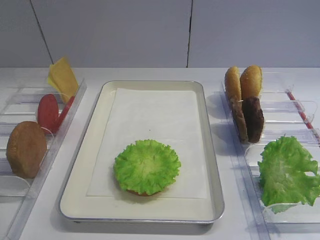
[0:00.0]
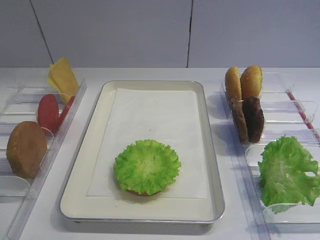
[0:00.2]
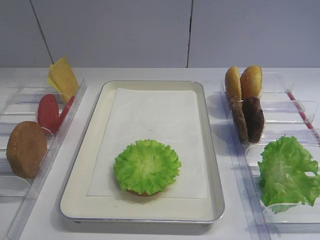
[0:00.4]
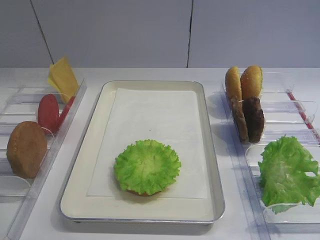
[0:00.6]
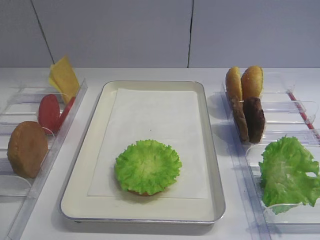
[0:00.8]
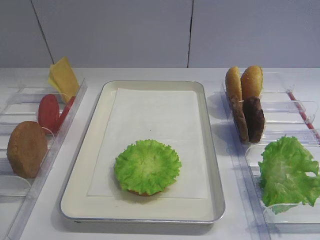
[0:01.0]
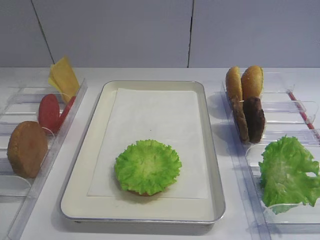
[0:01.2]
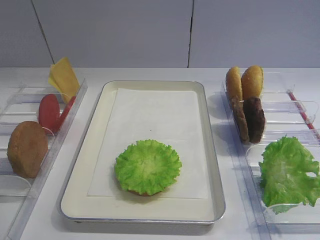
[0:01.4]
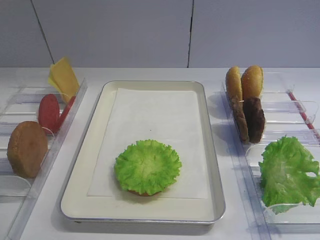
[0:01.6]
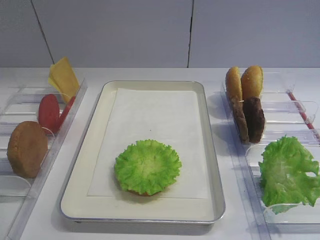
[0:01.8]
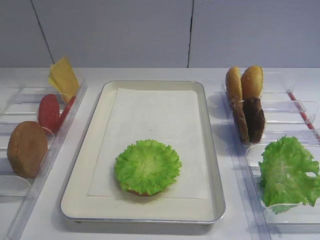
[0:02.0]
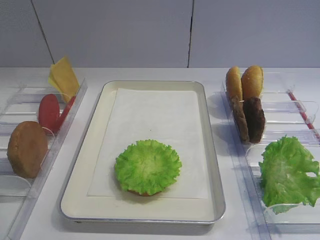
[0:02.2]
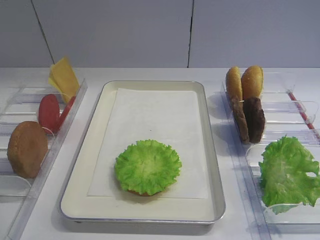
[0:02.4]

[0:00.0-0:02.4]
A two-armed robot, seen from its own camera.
0.0 to 1.2 s: The grippers move only a little.
1.2 to 2.4 s: Both grippers stay about where they are.

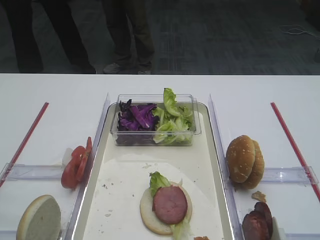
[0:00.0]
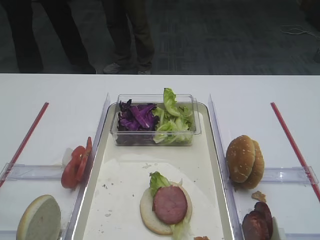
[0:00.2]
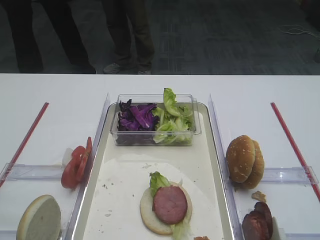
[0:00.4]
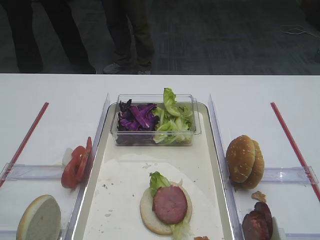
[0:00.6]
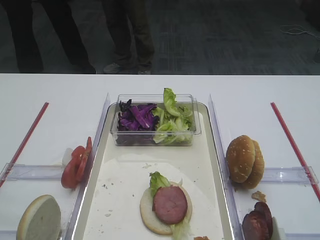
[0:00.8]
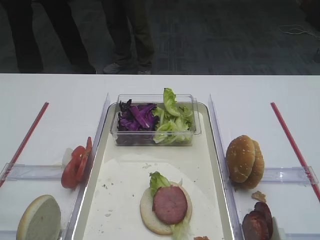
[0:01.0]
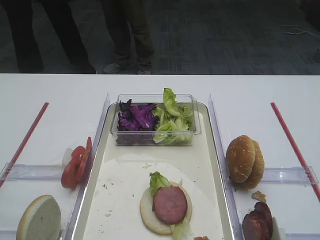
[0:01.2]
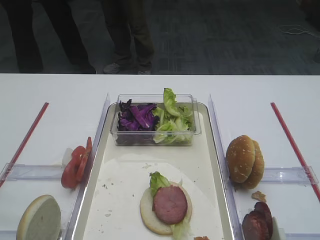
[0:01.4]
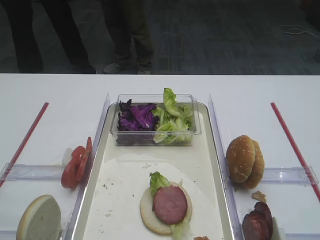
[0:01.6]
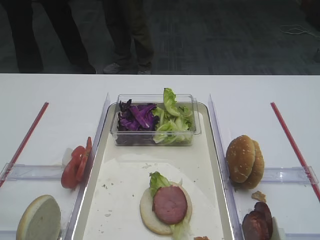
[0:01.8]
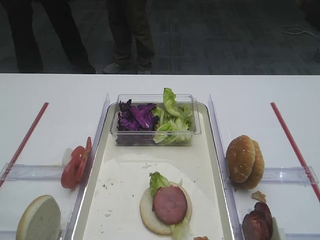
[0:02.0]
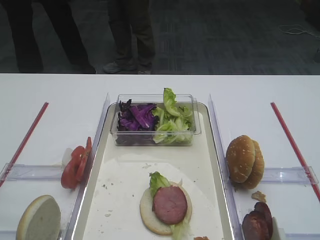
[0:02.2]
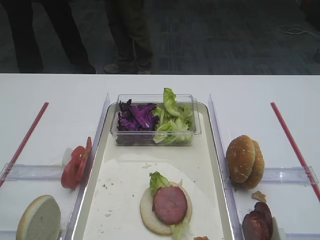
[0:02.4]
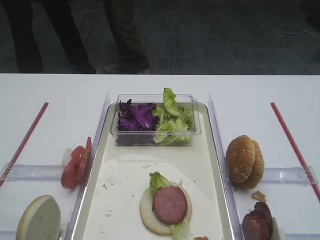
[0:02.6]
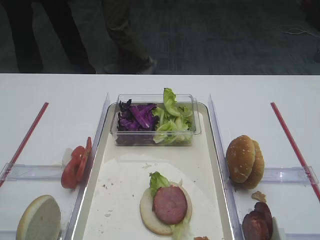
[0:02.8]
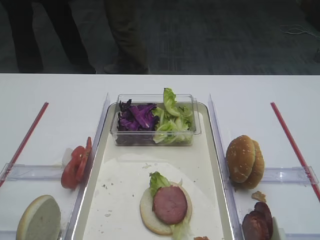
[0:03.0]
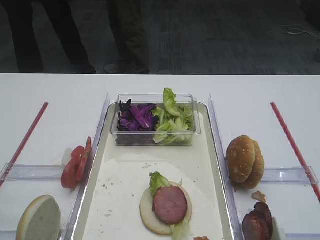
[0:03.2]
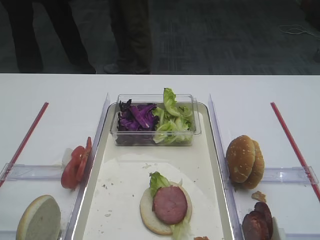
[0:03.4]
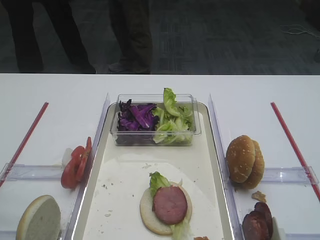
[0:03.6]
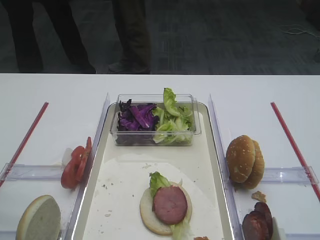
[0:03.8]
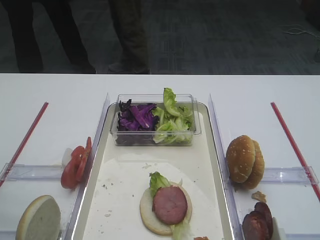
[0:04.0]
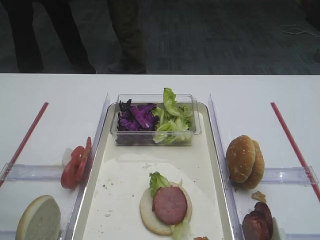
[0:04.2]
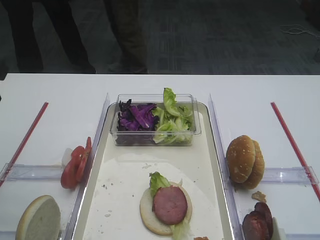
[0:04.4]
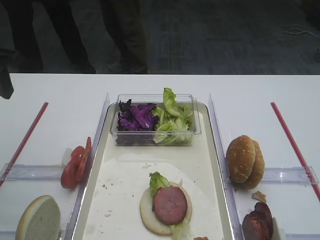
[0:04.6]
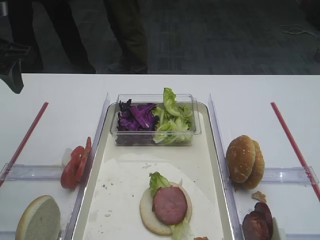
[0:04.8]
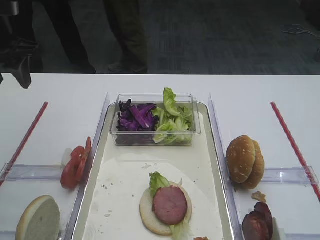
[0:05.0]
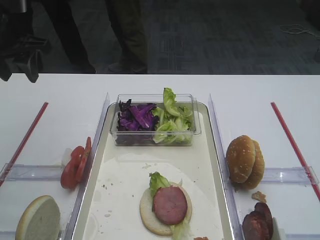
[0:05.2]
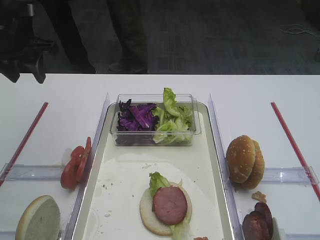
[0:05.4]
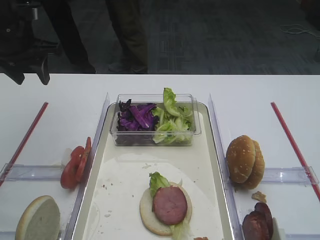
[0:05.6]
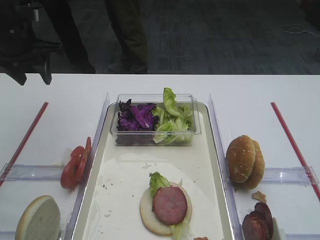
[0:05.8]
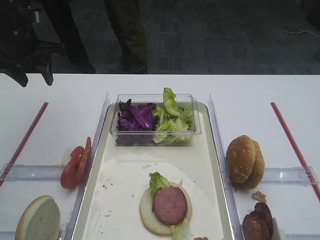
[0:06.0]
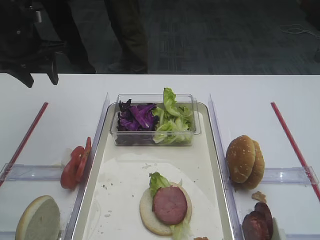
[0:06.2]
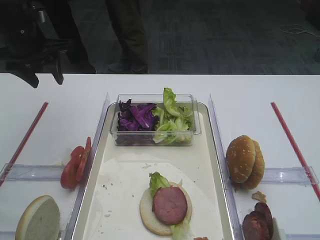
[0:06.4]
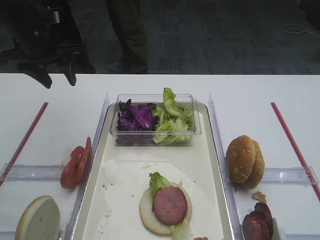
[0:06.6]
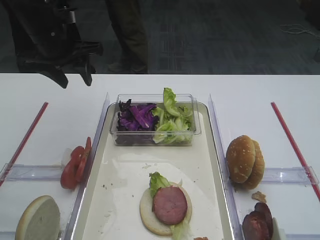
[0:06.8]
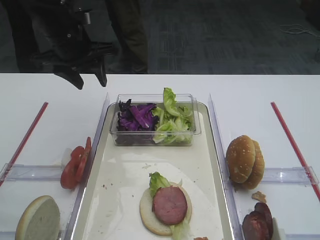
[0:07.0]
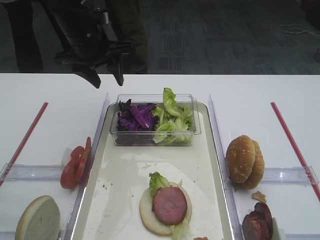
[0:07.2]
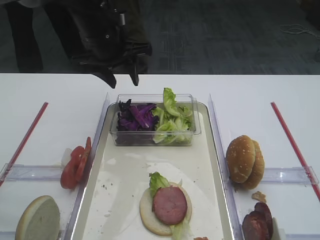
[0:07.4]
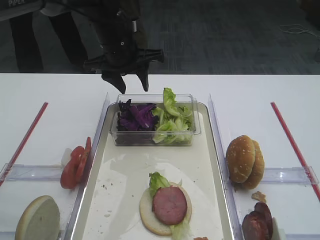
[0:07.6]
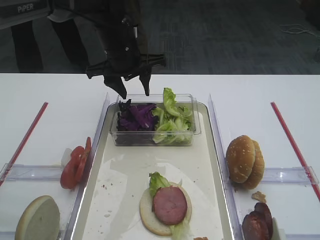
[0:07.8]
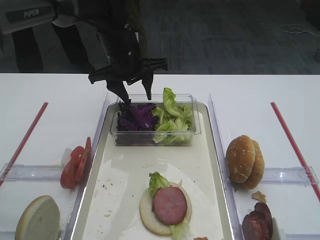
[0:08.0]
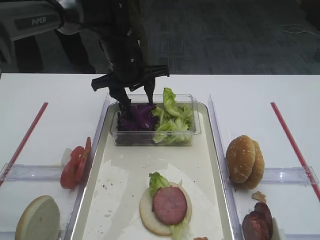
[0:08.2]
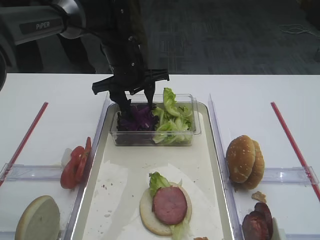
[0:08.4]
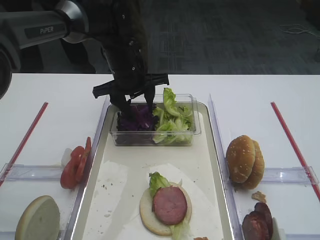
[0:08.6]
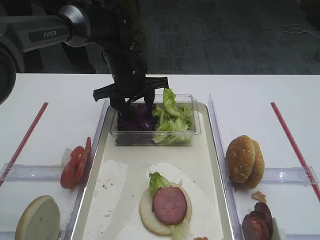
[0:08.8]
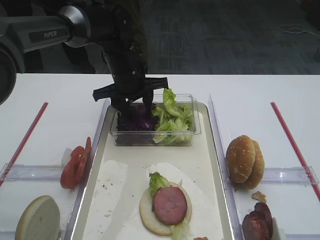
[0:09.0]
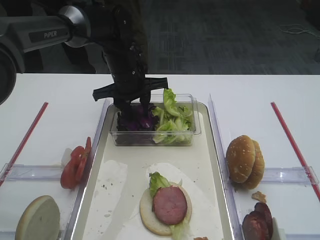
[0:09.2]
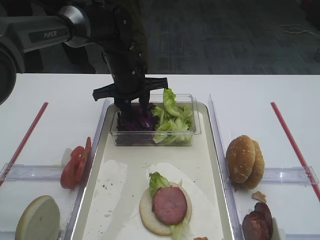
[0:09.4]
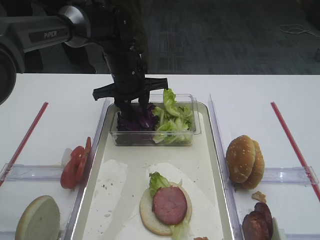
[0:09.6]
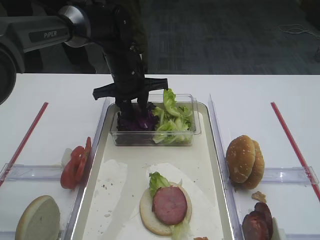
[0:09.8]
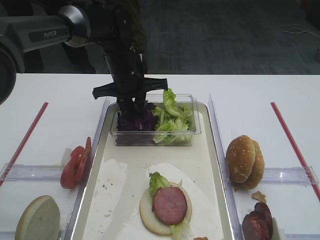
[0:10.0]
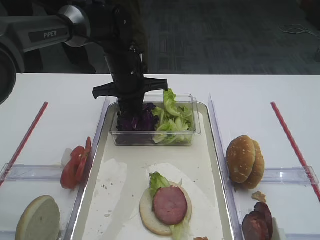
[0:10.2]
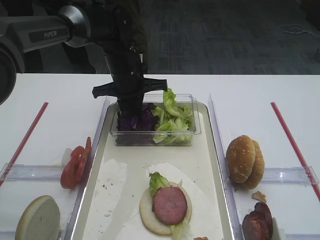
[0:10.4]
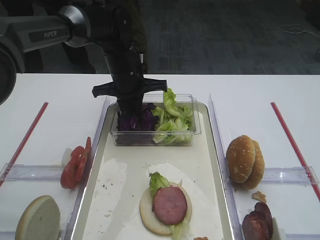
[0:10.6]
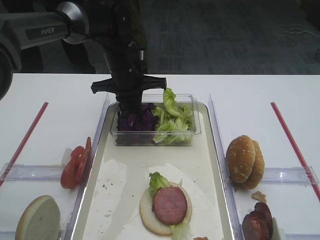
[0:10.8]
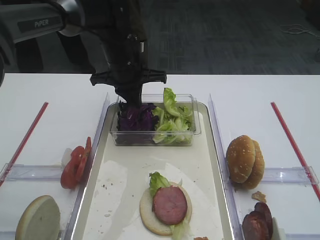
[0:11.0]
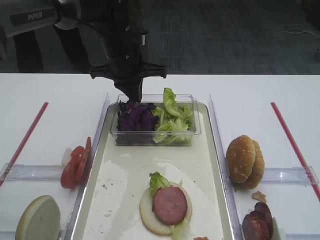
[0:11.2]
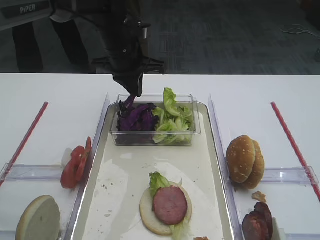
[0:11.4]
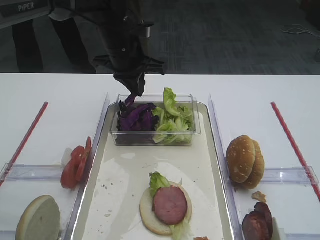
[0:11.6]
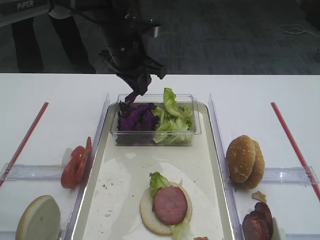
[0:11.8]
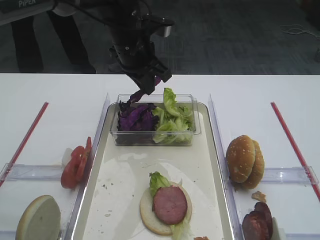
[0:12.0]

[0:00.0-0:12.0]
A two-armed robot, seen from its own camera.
Step, 0.0 to 11.4 s: Pick up the purple cabbage with the left gripper.
4.4 to 6.0 s: The left gripper shifts about 15 cm forward.
6.0 to 7.6 s: The left gripper heads to the right, covering roughly 20 cm.
7.6 to 9.0 s: The left gripper shifts approximately 5 cm downward.
9.0 to 10.4 s: The left gripper closes its fingers.
10.4 to 12.0 s: The left gripper heads upward, covering some 5 cm.

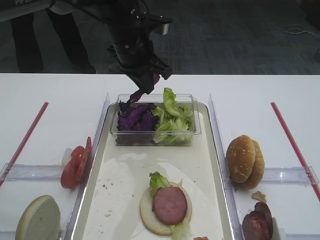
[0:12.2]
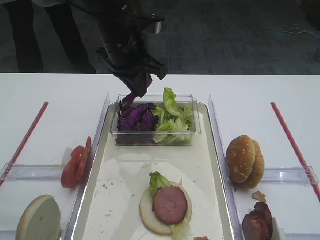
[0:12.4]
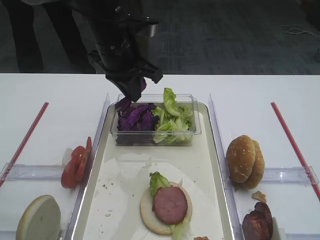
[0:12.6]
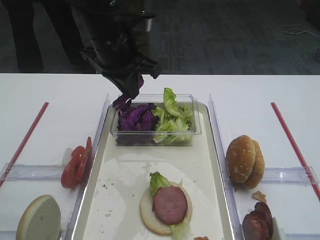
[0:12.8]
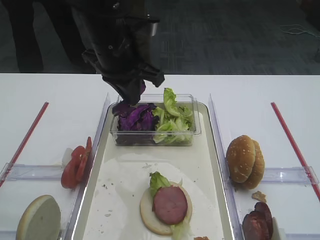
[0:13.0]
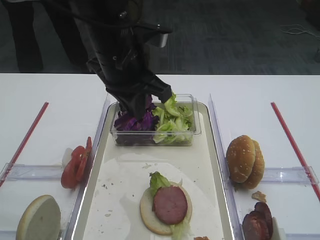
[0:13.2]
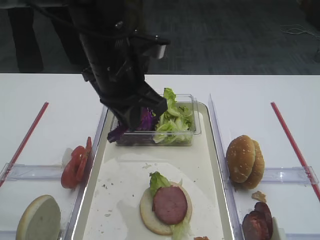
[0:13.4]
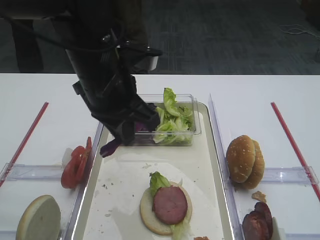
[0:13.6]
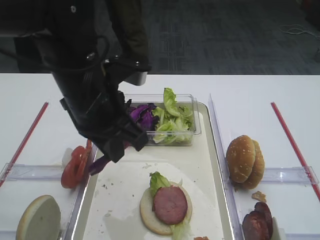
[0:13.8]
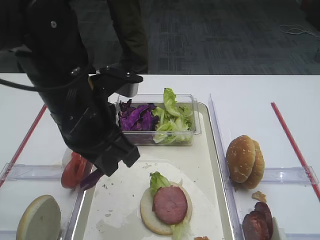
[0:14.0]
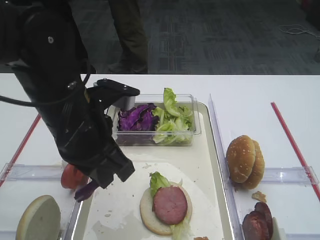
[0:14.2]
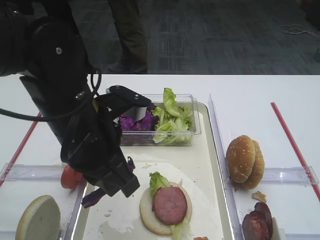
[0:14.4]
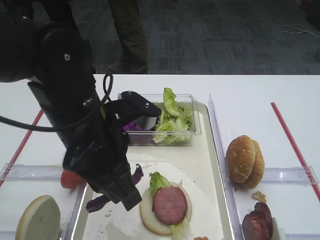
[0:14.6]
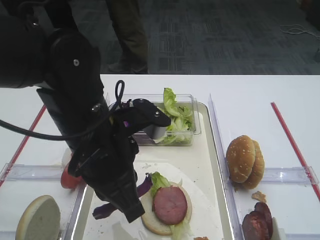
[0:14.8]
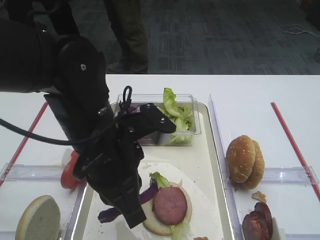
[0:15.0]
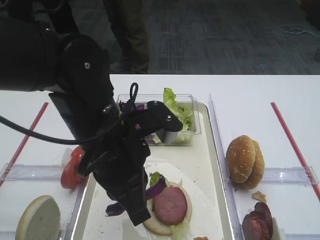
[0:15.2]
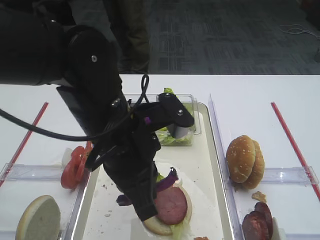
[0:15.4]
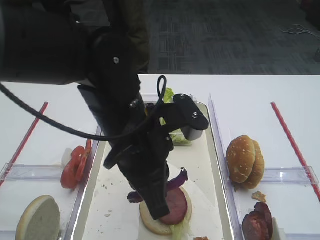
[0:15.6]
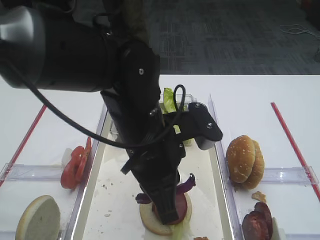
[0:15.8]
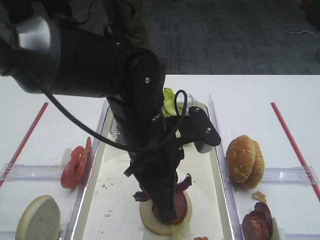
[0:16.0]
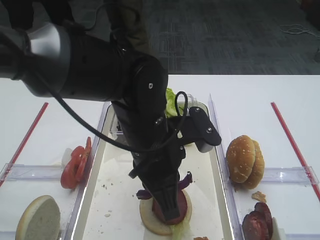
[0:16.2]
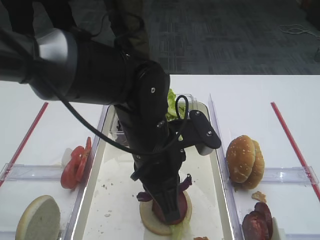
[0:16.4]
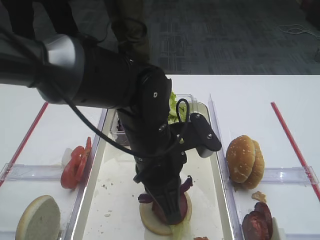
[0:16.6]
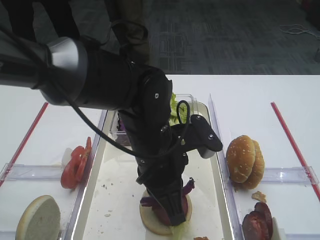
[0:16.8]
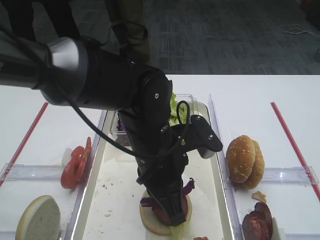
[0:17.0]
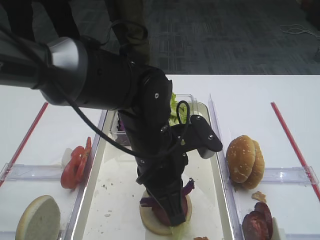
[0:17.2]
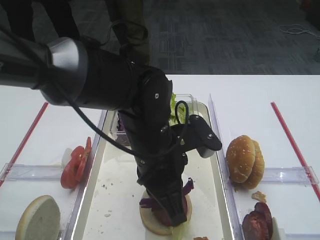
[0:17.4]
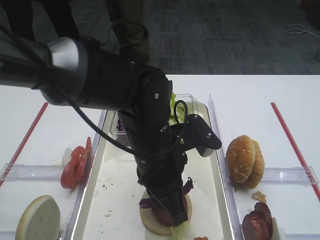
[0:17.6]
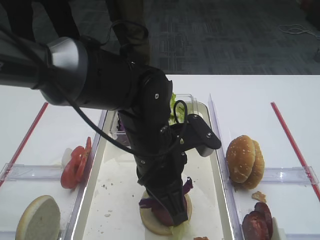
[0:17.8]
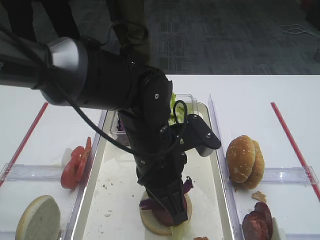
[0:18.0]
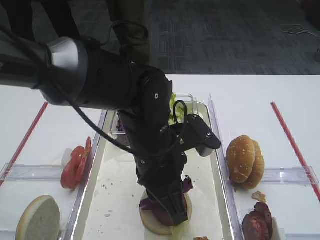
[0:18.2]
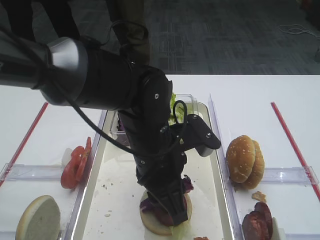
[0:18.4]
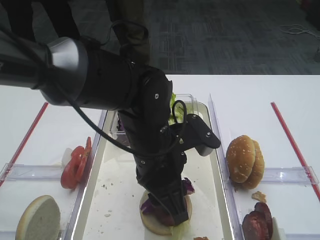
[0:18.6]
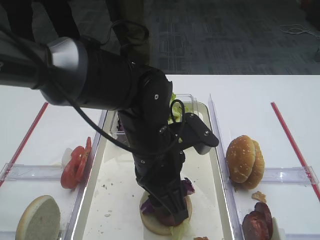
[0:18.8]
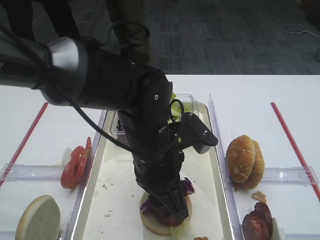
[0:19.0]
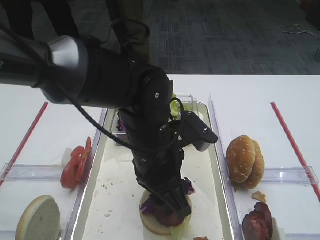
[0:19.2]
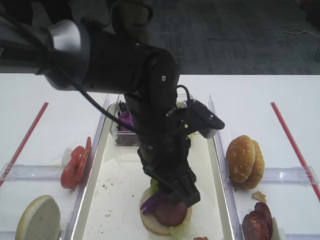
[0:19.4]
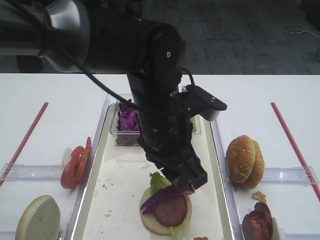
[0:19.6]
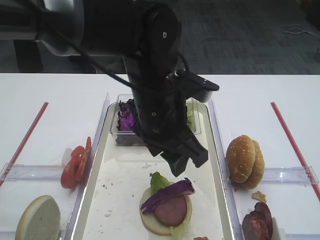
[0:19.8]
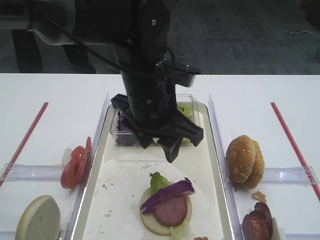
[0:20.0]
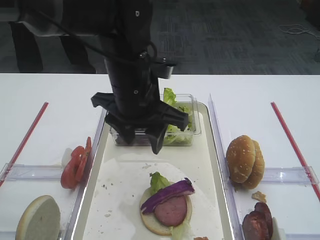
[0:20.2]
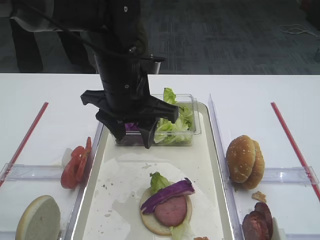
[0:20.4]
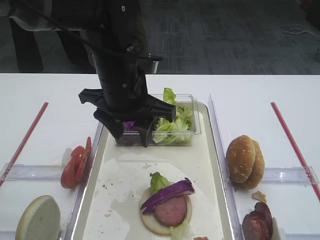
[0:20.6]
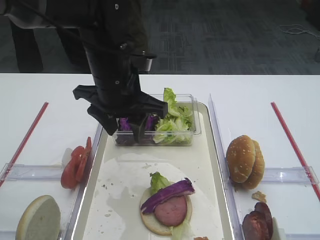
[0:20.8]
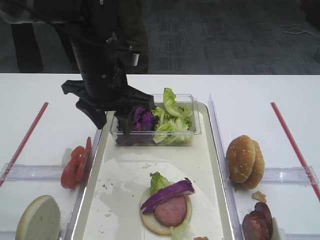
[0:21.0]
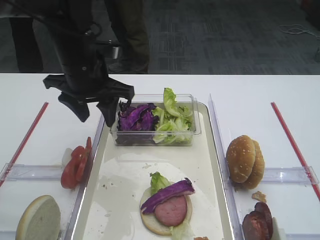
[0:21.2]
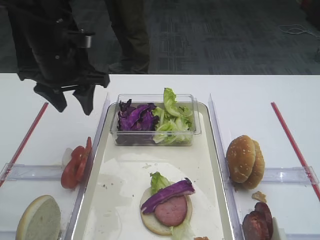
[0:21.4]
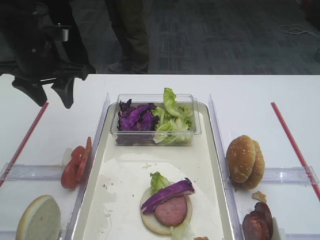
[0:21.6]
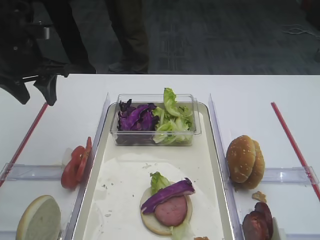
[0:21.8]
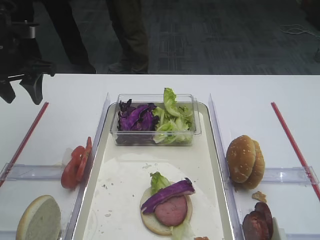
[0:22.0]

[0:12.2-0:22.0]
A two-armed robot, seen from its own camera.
Step, 12.2 to 19.6 s: Place the purple cabbage on the cutlet with the left gripper.
12.2 to 13.6 s: The left gripper goes approximately 15 cm backward.
13.6 to 15.0 s: The left gripper shifts some 10 cm backward and downward.
15.0 to 16.4 s: The left gripper heads to the right, covering some 5 cm.
16.4 to 17.8 s: The grippers stay close to where they were, moving slightly.
17.8 to 19.2 s: The left gripper opens up.
19.2 to 20.6 s: The left gripper goes approximately 10 cm forward, upward and to the left.
20.6 to 22.0 s: The left gripper goes about 20 cm to the left.
